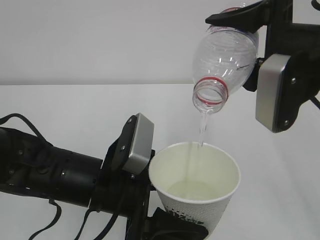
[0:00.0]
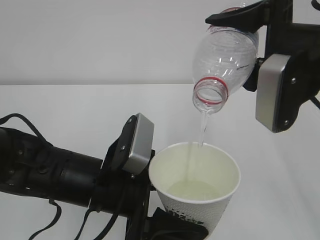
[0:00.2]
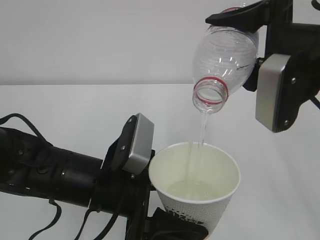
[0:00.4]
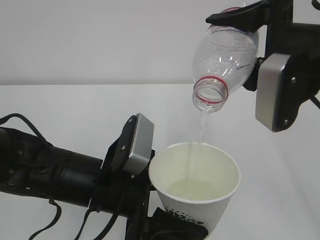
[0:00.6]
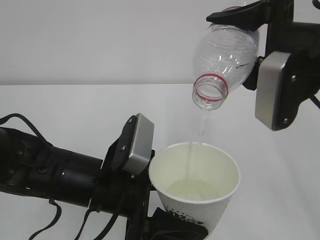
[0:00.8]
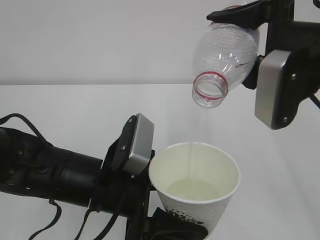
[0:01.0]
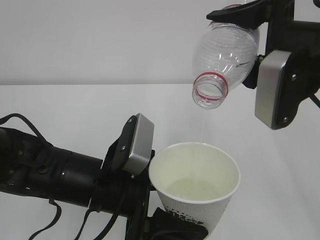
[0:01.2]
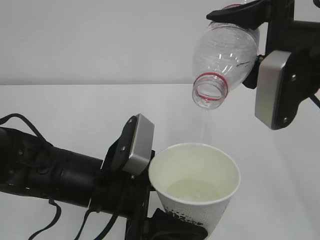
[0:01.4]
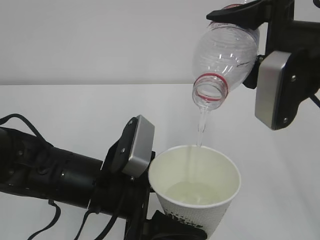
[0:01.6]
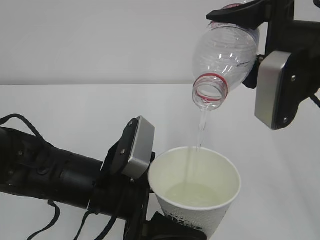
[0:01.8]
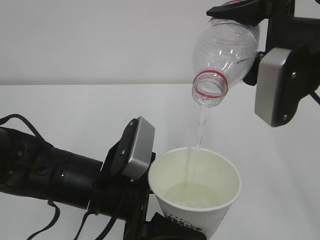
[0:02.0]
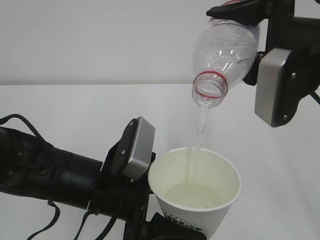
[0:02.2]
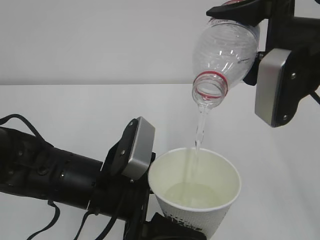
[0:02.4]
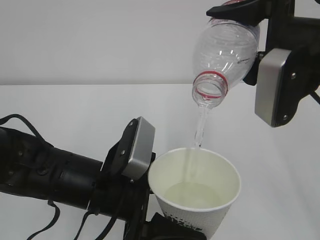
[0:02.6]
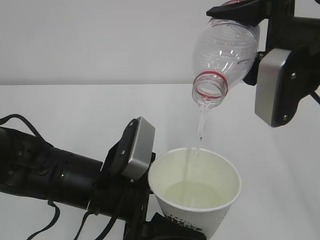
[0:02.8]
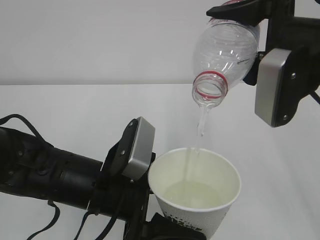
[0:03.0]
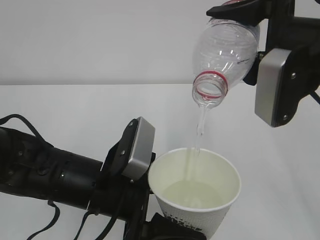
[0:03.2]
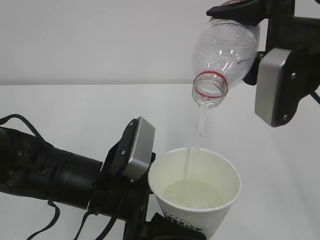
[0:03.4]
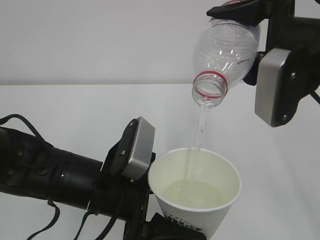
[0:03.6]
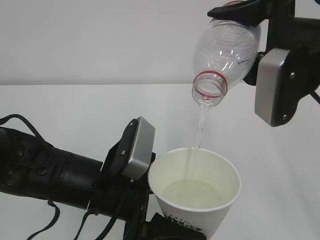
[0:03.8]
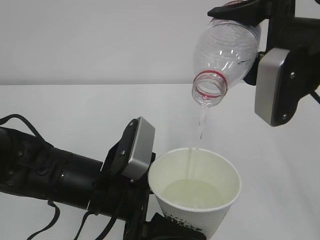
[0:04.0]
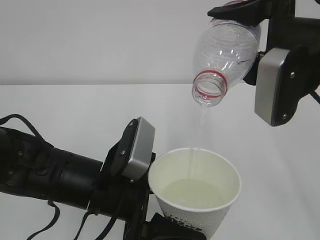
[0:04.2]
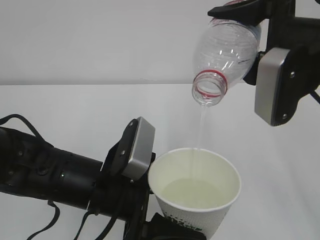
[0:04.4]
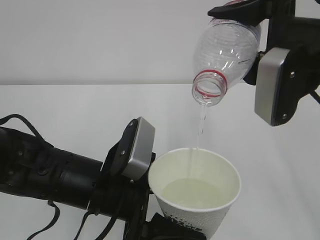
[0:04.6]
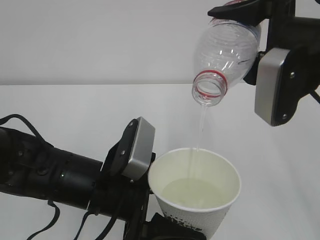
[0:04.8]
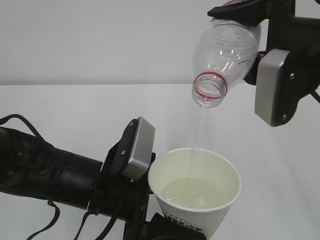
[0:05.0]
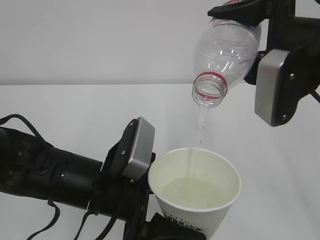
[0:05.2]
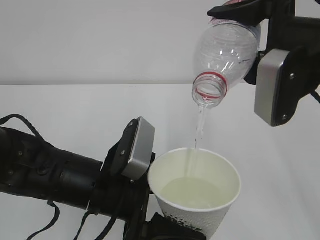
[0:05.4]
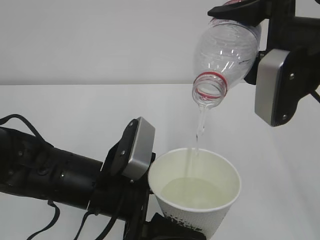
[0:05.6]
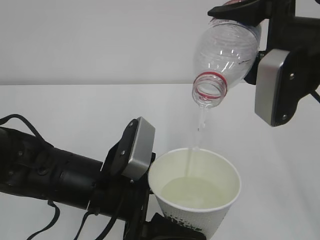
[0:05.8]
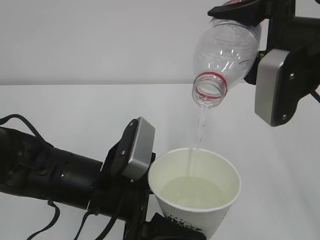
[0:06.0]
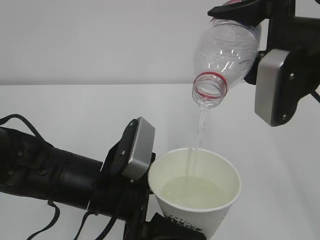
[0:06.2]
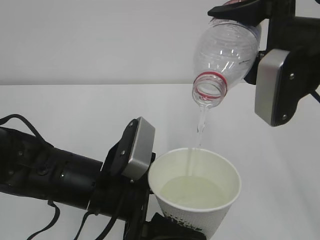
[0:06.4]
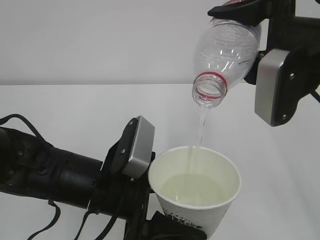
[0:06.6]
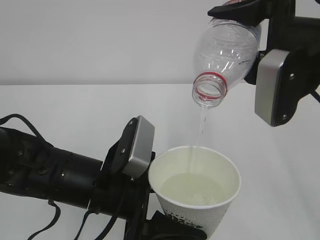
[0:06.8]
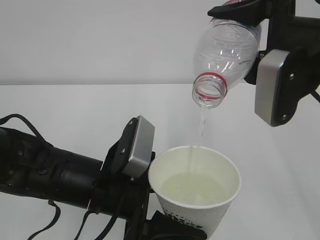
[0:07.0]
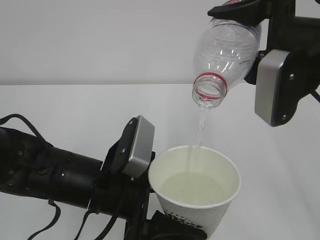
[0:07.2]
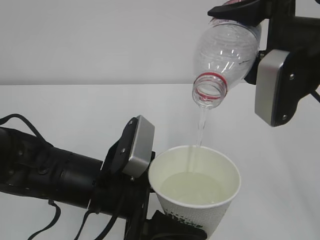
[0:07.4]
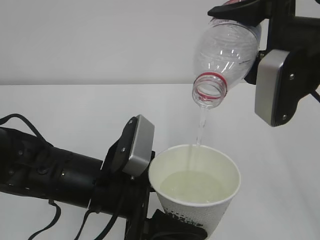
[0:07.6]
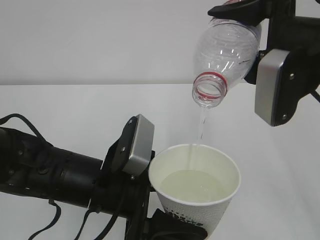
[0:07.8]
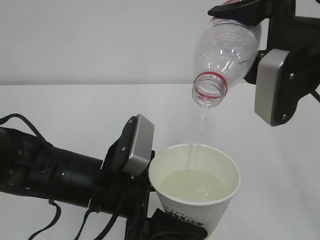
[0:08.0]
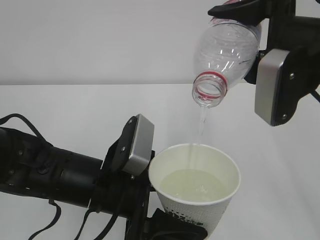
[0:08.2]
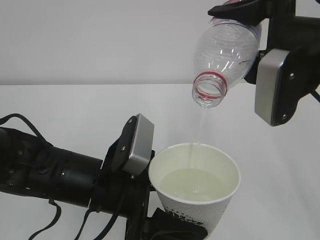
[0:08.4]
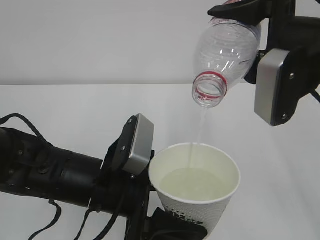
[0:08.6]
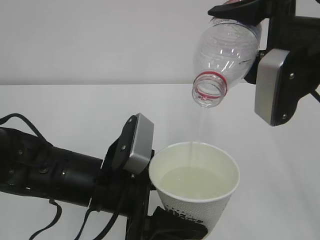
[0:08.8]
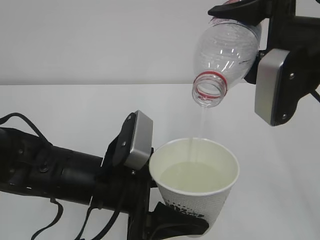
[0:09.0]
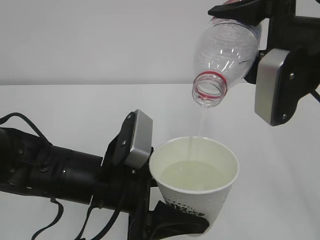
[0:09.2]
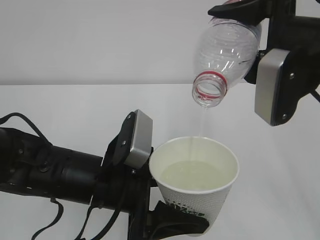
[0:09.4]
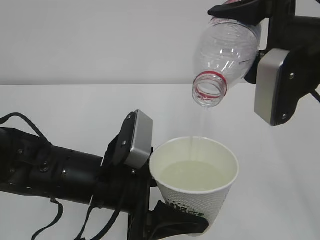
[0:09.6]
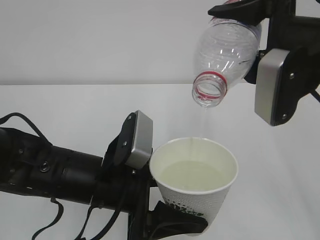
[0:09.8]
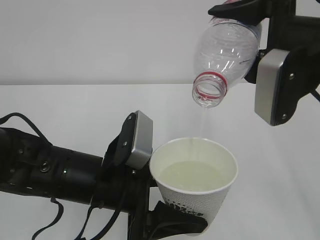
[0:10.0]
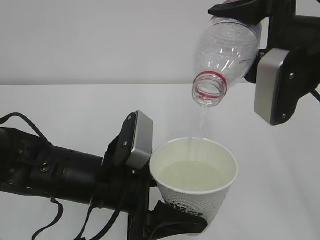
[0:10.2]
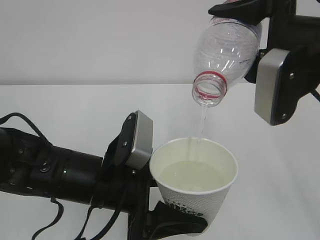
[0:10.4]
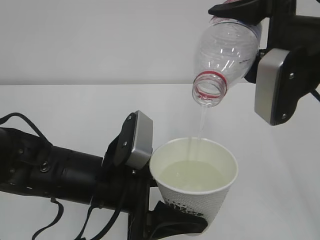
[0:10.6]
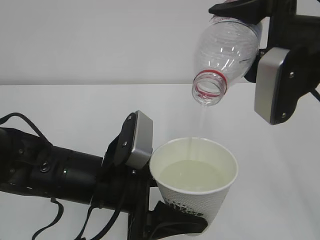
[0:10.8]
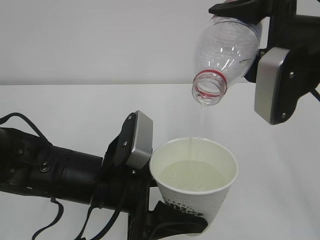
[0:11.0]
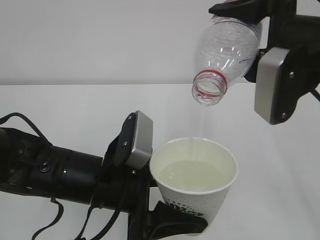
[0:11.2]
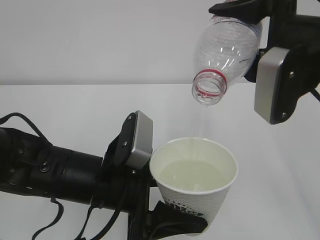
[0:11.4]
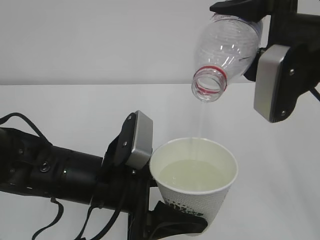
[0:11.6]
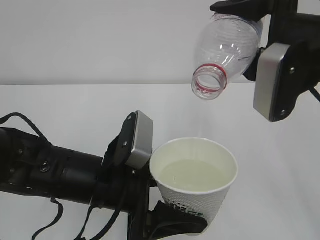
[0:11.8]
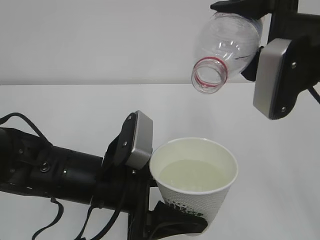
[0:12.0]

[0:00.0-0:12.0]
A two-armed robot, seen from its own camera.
0:00.0 to 0:10.4: Both grippers stay put.
0:10.4 to 0:12.0: The grippers make only small movements.

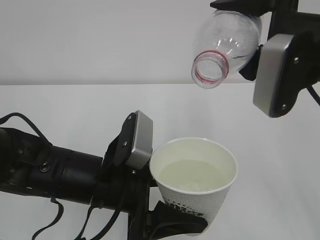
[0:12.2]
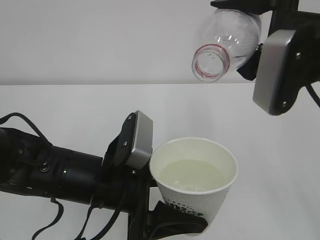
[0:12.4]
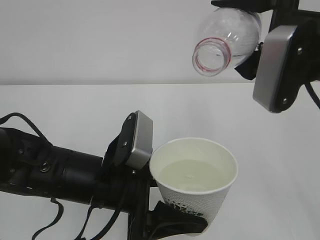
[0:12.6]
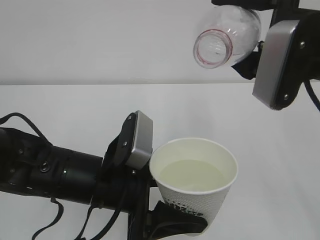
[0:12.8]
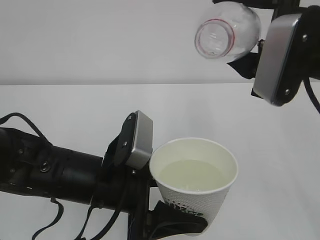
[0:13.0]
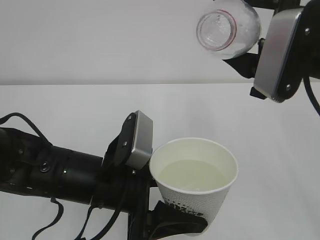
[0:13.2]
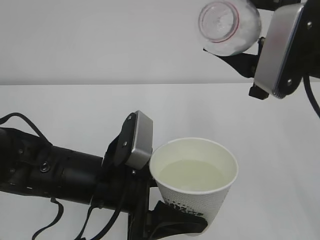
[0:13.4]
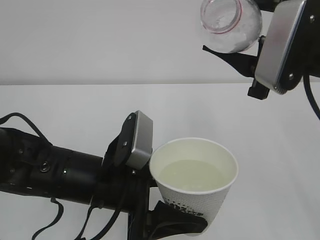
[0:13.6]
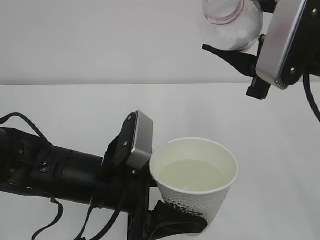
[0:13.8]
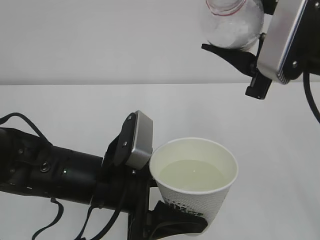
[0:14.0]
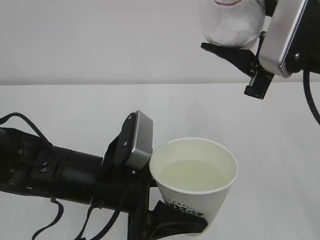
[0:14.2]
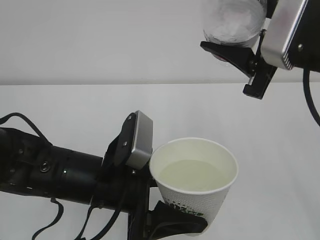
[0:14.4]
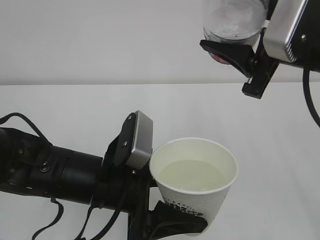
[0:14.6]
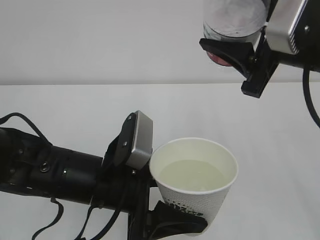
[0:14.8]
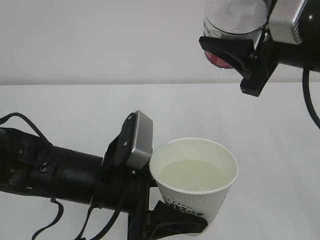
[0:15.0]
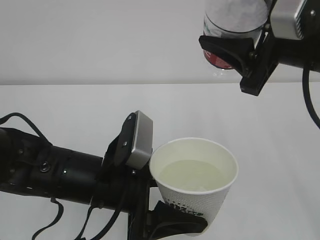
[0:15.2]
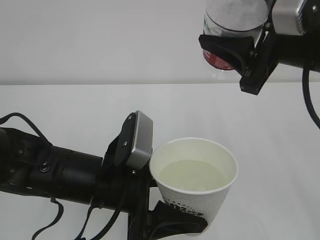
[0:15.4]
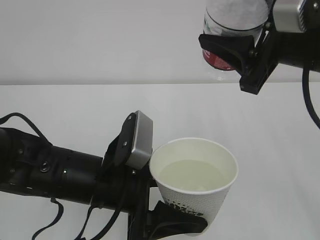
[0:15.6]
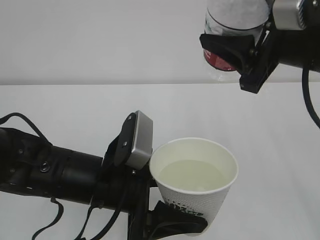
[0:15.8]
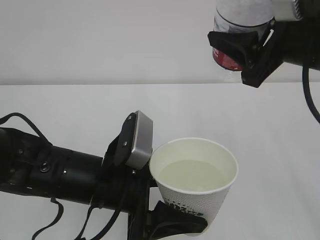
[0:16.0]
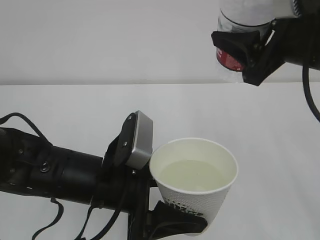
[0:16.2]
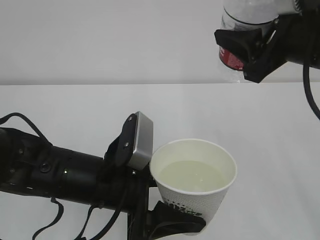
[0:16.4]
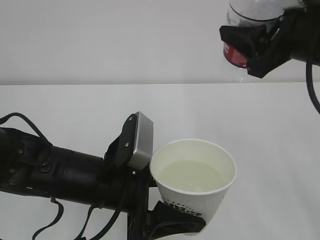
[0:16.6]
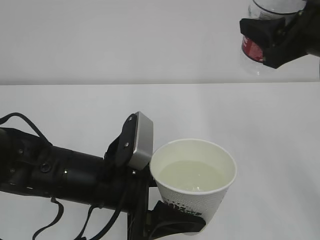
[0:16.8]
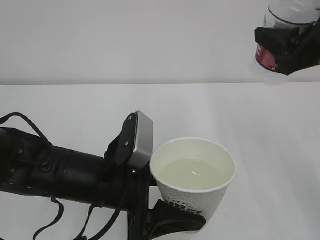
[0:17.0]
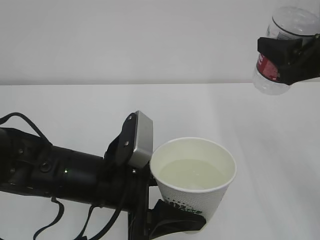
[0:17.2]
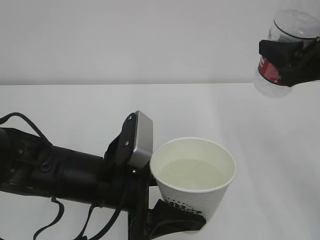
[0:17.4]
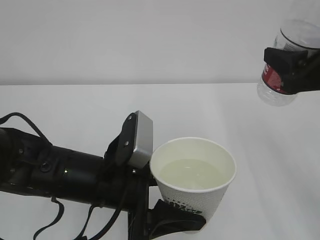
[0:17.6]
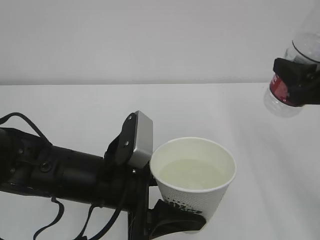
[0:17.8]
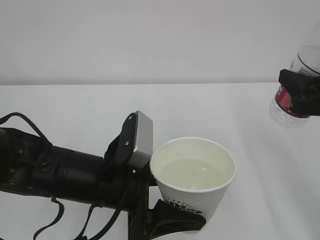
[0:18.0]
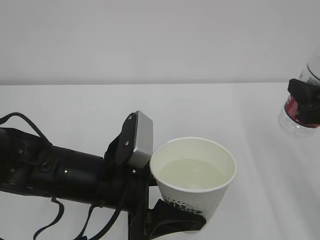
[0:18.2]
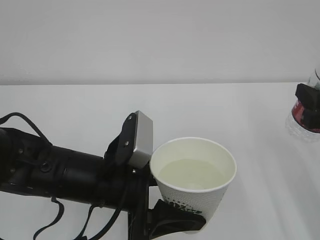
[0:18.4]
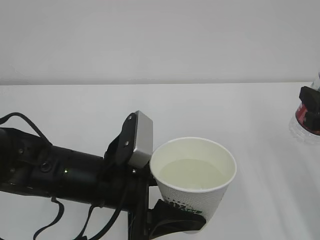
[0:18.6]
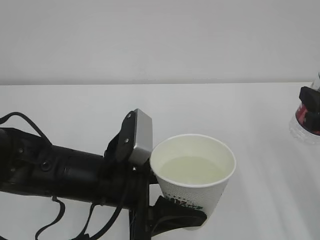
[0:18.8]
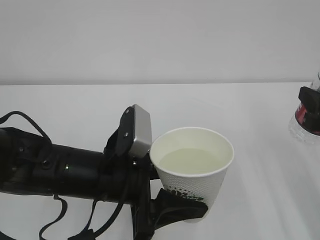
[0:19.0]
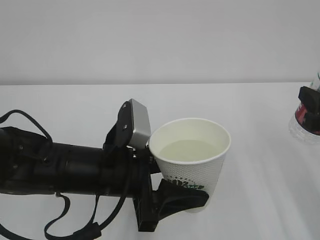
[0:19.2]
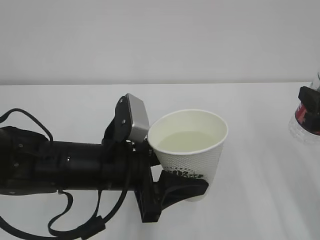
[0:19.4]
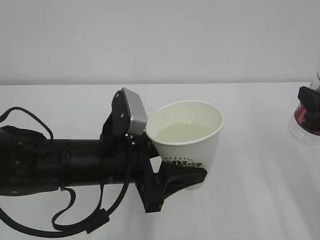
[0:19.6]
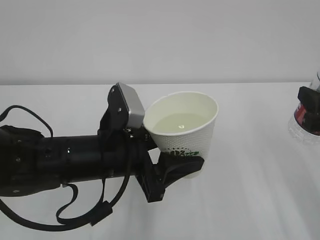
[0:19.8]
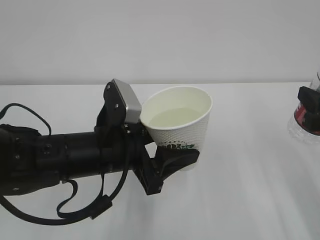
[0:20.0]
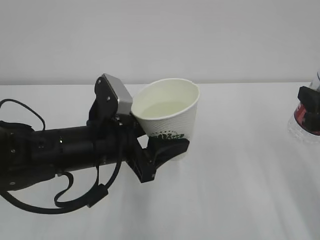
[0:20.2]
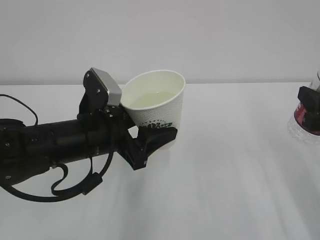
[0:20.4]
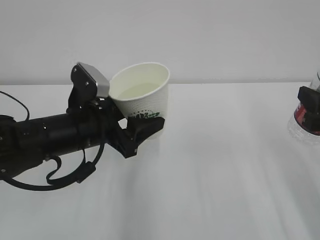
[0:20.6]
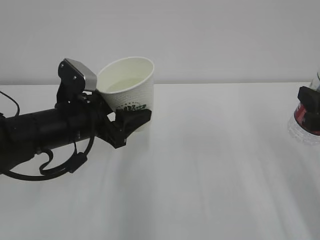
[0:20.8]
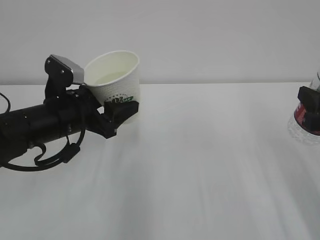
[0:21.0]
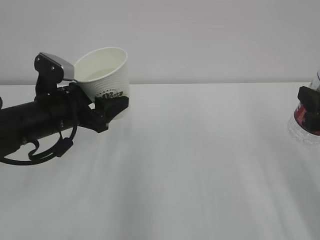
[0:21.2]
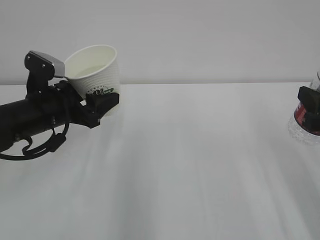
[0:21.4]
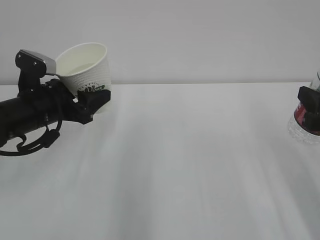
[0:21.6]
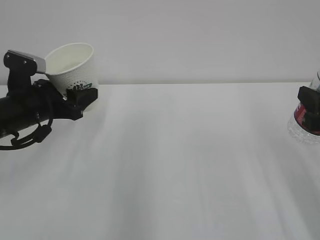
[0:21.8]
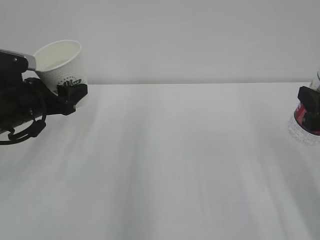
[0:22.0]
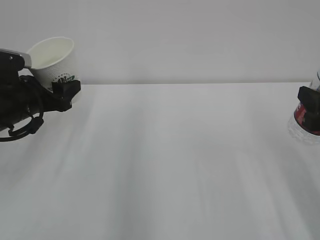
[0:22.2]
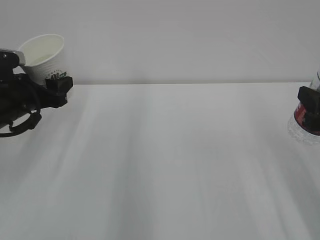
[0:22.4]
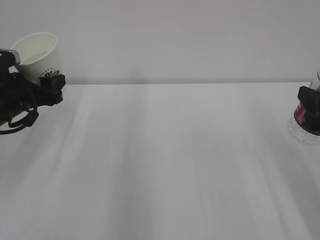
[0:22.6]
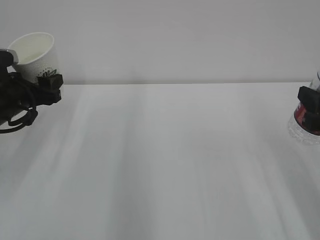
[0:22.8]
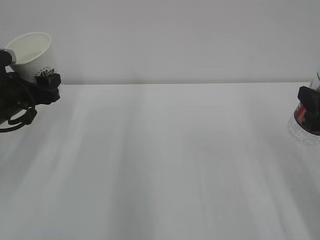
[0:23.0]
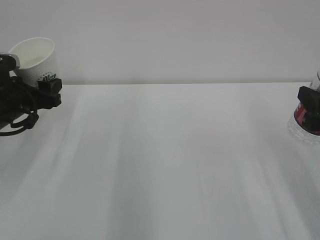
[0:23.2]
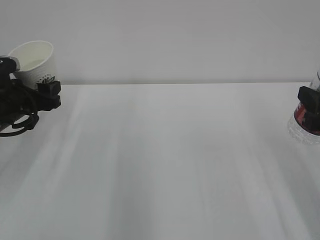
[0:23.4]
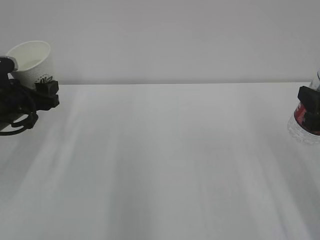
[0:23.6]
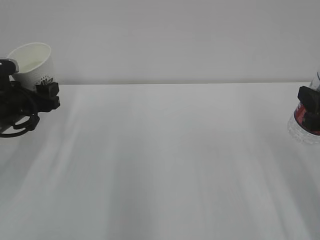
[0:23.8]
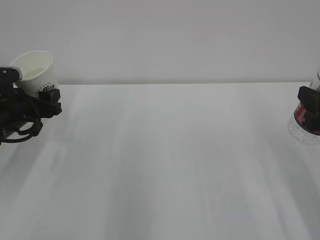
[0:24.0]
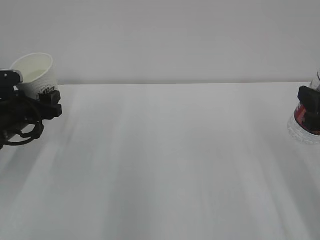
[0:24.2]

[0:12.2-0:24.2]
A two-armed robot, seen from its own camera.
0:15.2 to 0:16.6: There are only small adjustments of the grippers.
0:16.6 to 0:18.2: The right gripper heads downward and to the right, covering some 10 cm.
0:19.8 to 0:21.2: The left gripper goes about 15 cm to the left and forward.
0:21.2 to 0:22.6: The left gripper shifts roughly 10 cm to the left.
0:22.6 to 0:24.2: The grippers stay close to where they were, moving slightly.
